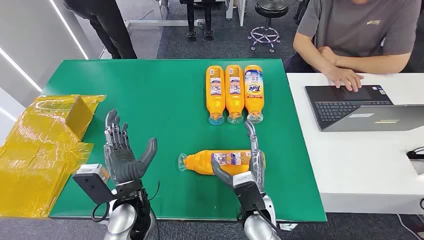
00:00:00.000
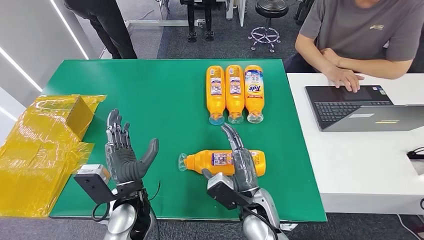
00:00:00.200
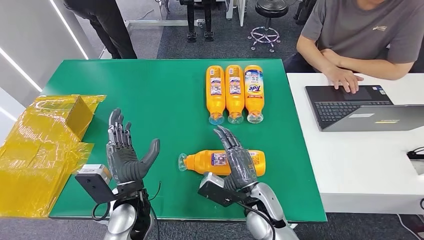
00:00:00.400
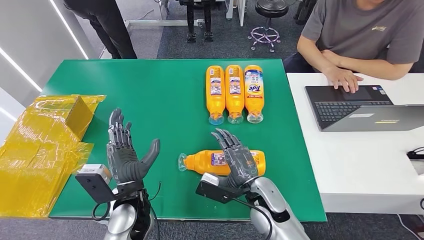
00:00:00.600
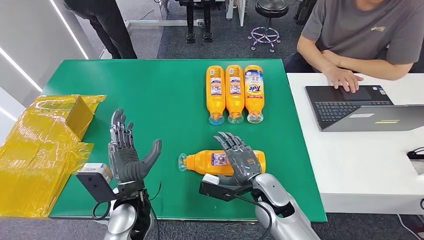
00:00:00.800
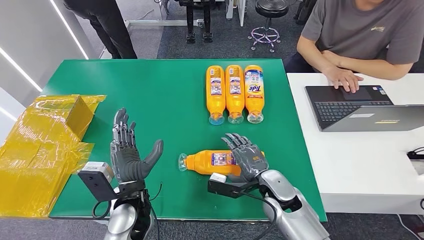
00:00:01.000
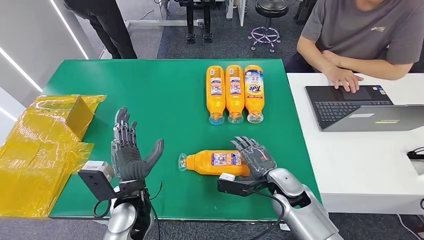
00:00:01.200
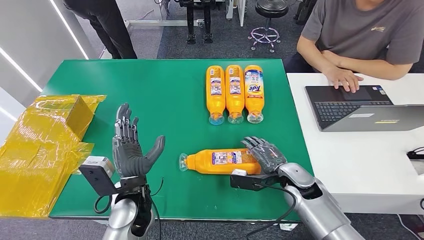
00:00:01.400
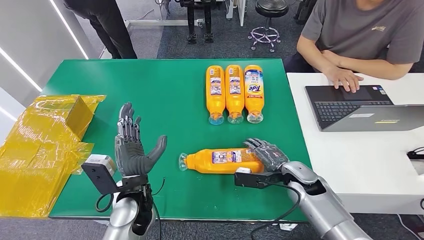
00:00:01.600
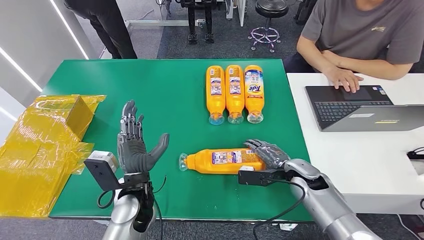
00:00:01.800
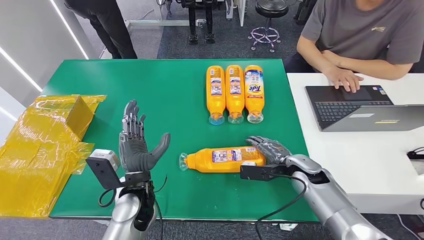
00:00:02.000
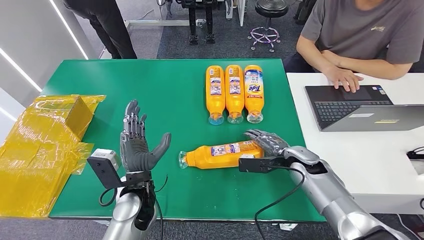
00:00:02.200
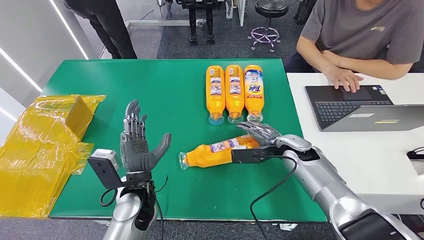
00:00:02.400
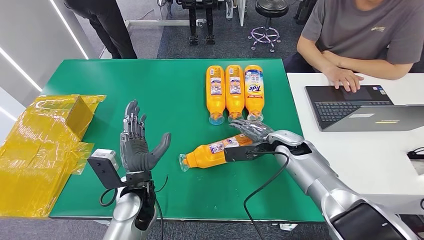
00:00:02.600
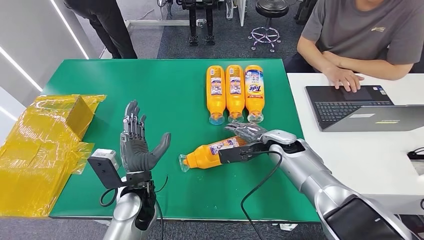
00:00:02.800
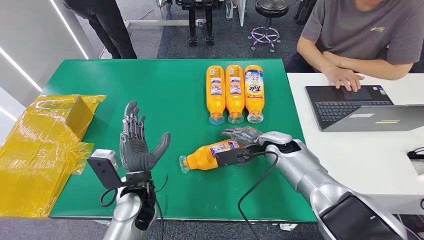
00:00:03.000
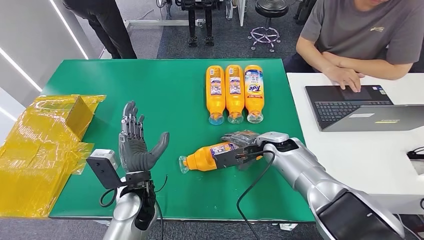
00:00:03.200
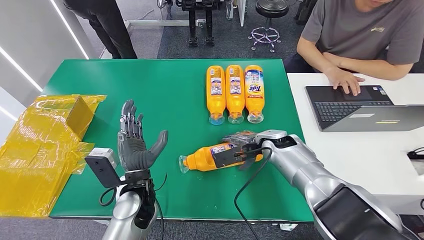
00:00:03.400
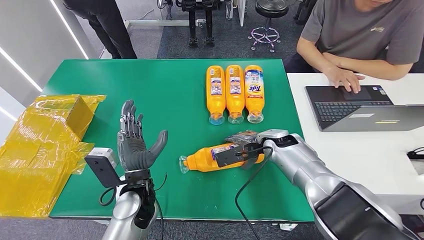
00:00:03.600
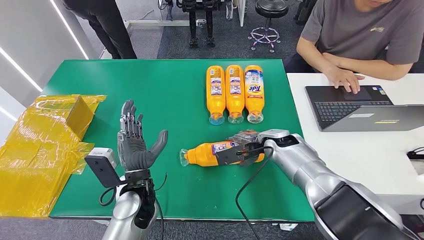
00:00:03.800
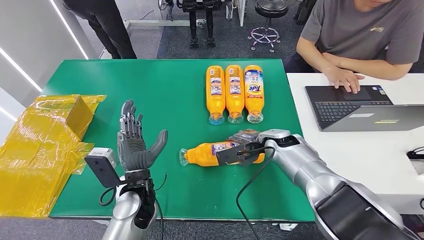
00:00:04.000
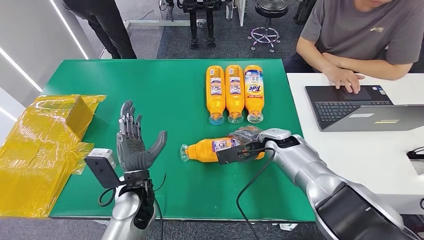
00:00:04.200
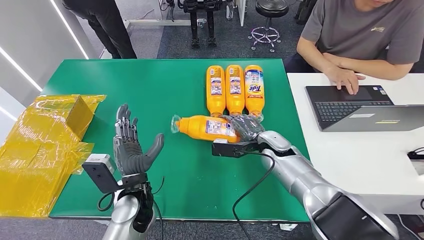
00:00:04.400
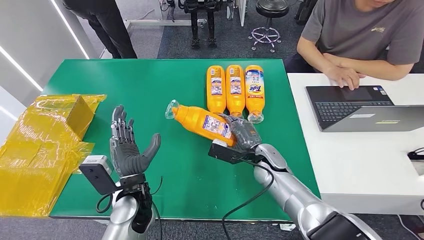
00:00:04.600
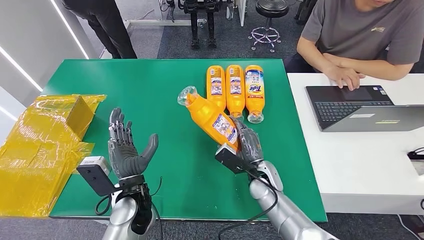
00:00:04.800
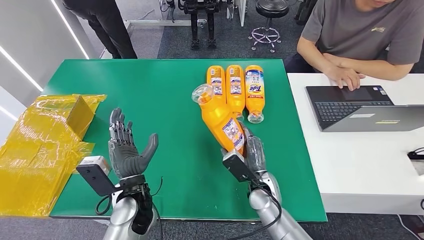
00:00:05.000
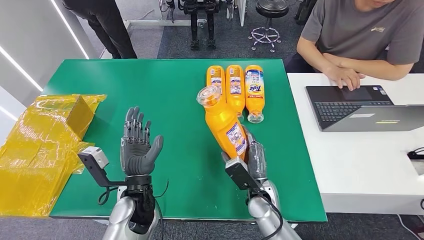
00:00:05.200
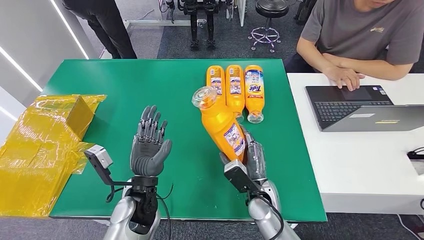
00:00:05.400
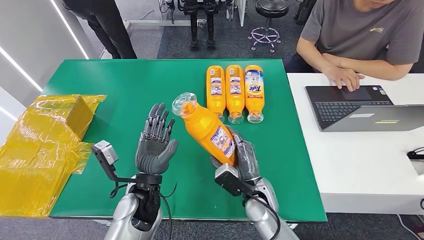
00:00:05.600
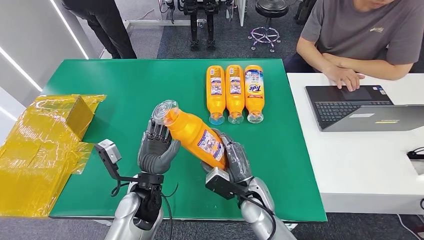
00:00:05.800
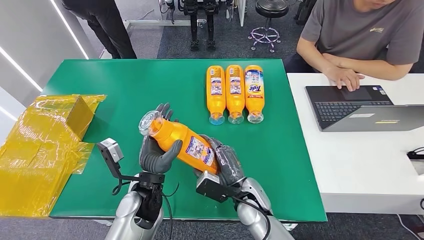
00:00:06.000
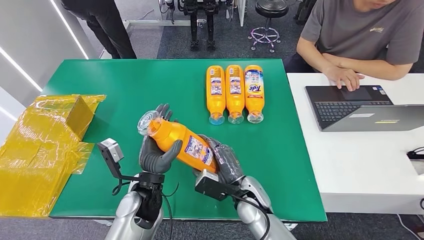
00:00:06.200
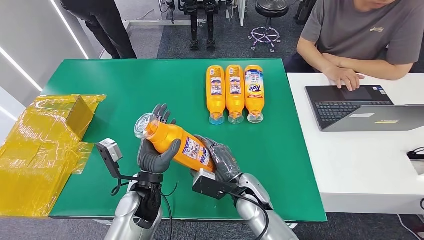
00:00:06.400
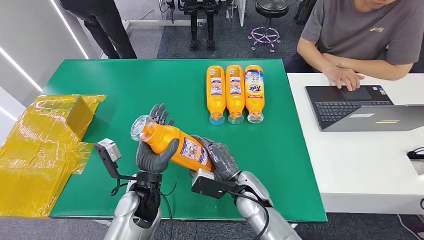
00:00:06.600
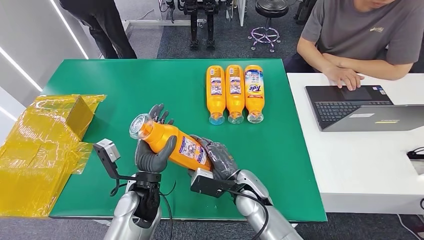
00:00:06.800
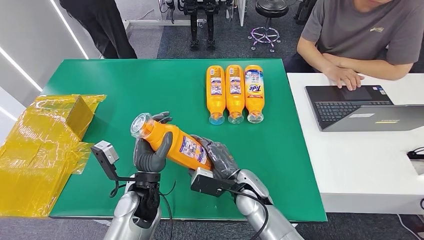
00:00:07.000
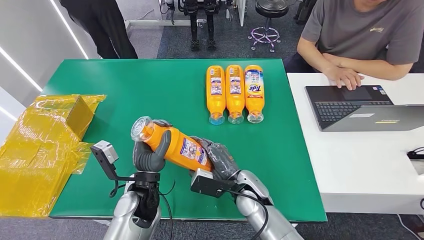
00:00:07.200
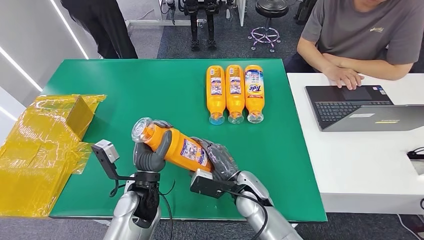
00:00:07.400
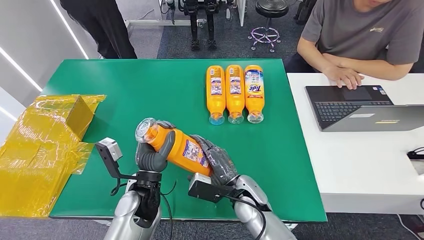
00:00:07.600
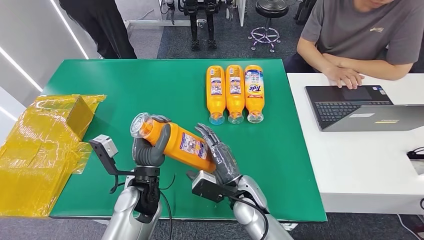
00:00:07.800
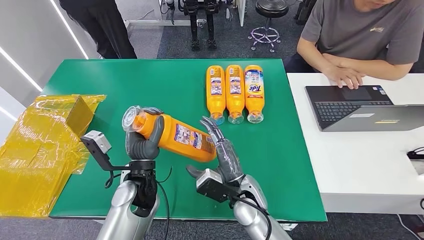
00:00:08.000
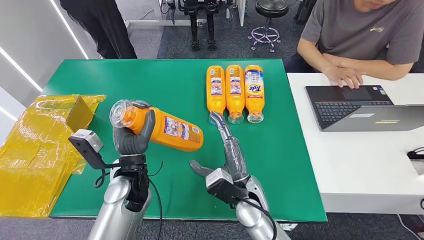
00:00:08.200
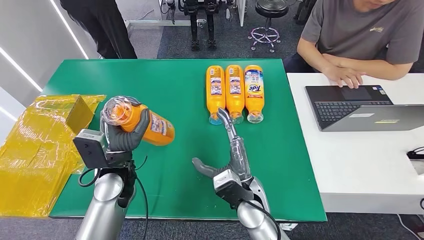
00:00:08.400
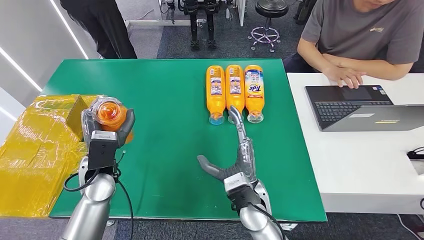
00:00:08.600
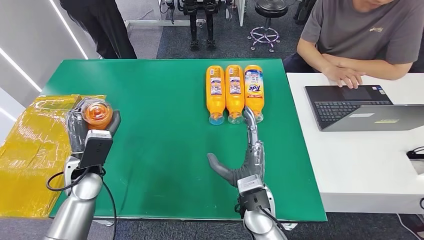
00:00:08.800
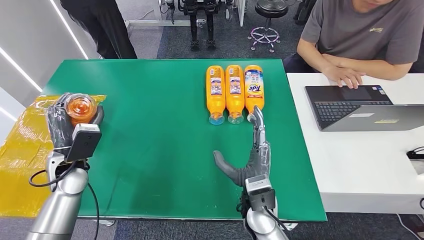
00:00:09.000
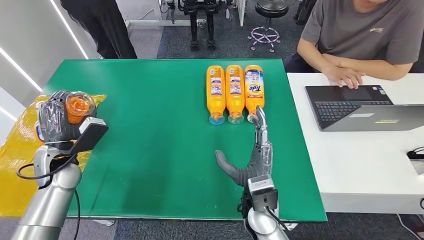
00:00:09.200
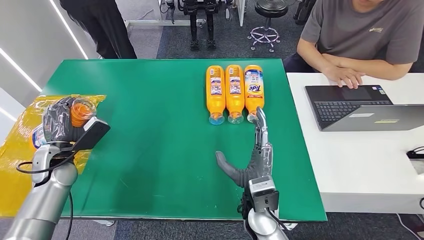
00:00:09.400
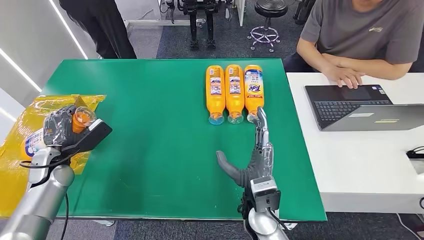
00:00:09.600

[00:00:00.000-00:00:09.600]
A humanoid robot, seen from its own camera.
Step, 00:00:00.000 to 00:00:05.000: Pick up the bottle from the table.
Step, 00:00:05.400 to 00:00:09.400: Turn the bottle to the front side.
00:00:01.600 to 00:00:03.200: The right hand is displaced forward and to the left by about 10 cm.
00:00:03.200 to 00:00:04.800: The right hand heads backward and downward, covering about 10 cm.
00:00:04.800 to 00:00:06.400: The right hand moves to the left and backward, some 10 cm.
00:00:06.400 to 00:00:08.000: The hands make only small movements.
00:00:08.000 to 00:00:09.600: The left hand travels to the left by some 25 cm.
